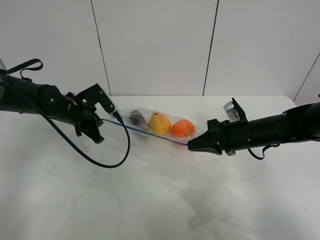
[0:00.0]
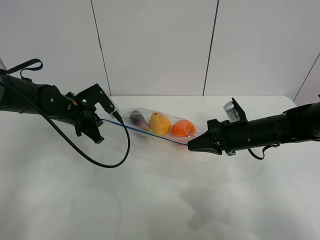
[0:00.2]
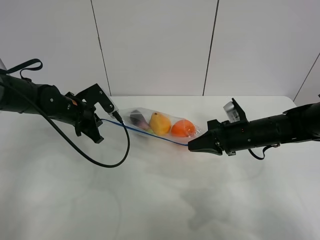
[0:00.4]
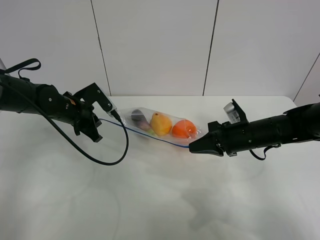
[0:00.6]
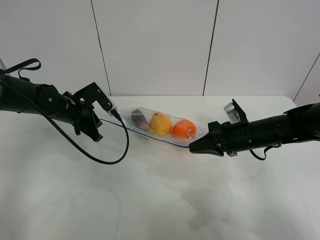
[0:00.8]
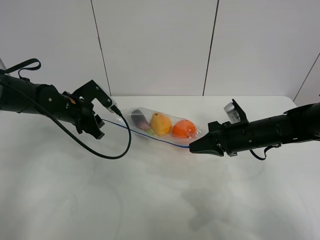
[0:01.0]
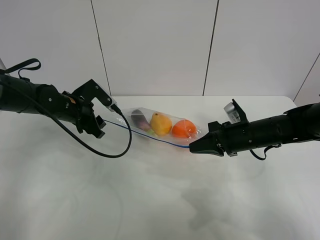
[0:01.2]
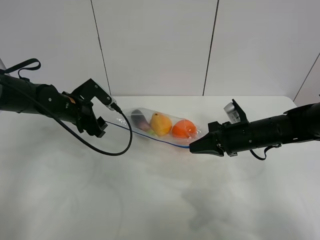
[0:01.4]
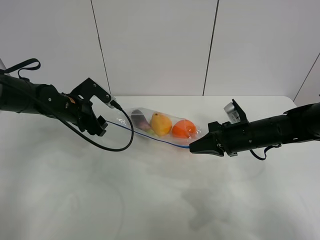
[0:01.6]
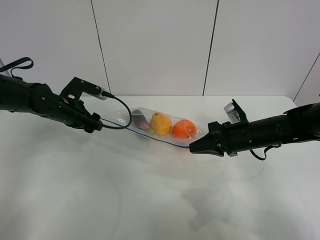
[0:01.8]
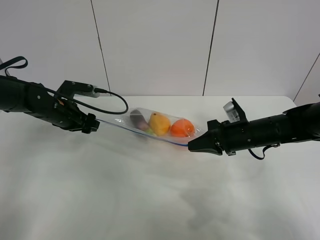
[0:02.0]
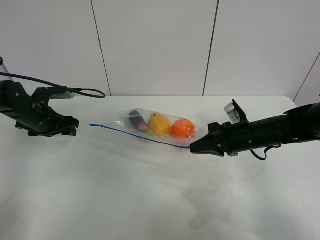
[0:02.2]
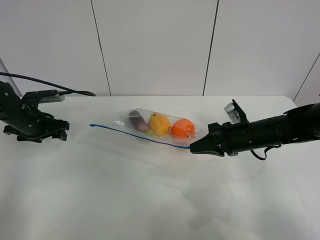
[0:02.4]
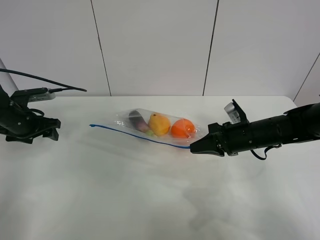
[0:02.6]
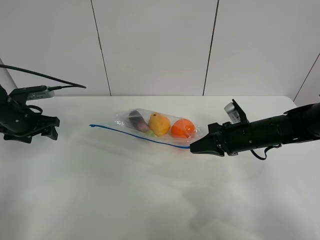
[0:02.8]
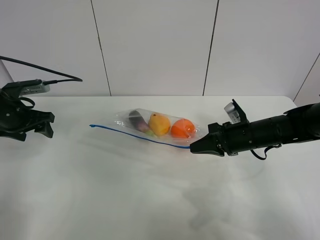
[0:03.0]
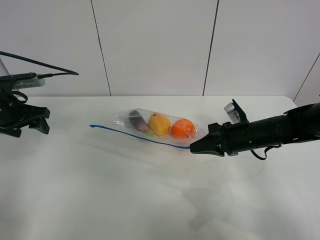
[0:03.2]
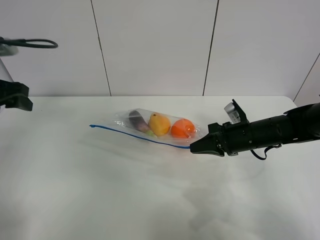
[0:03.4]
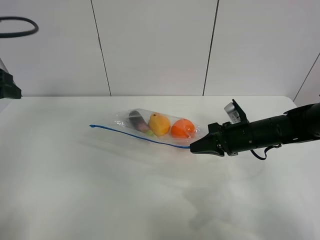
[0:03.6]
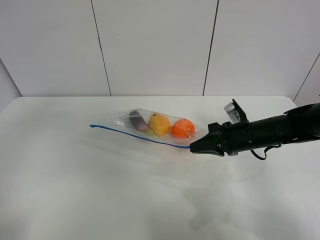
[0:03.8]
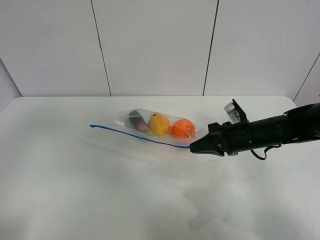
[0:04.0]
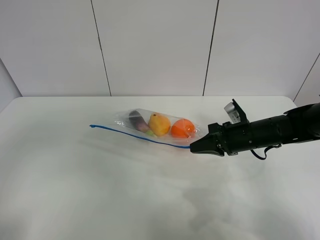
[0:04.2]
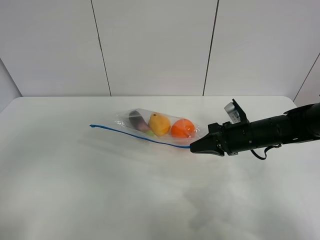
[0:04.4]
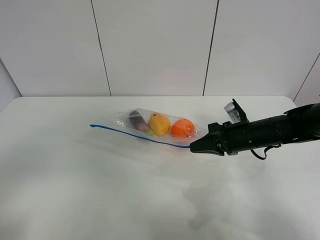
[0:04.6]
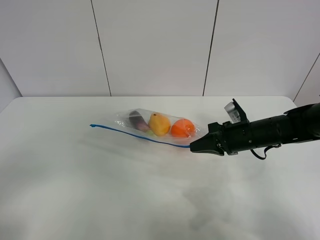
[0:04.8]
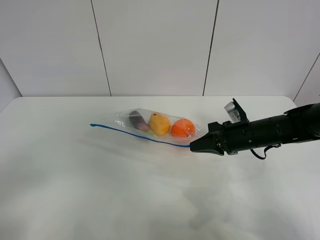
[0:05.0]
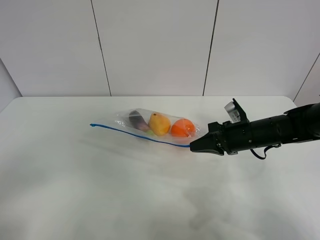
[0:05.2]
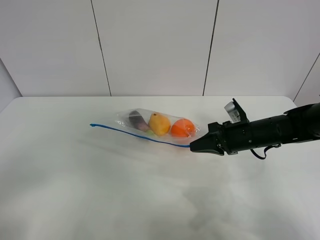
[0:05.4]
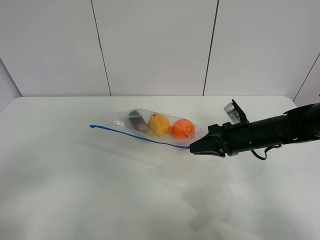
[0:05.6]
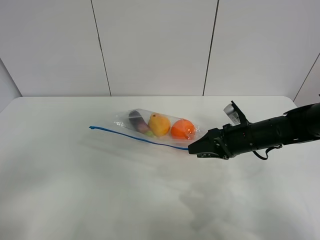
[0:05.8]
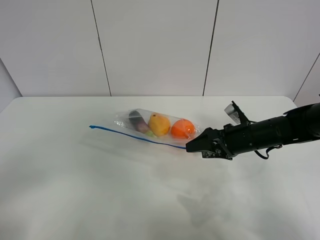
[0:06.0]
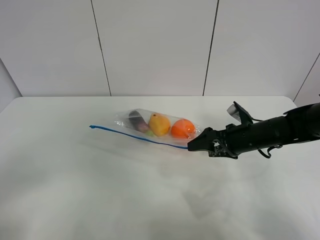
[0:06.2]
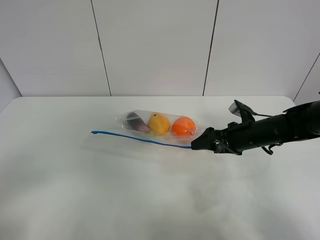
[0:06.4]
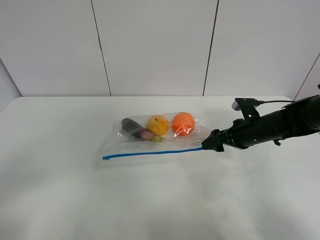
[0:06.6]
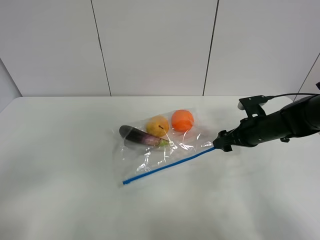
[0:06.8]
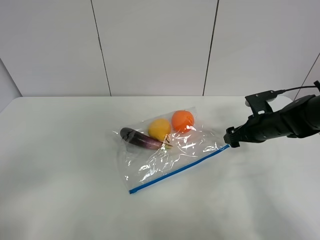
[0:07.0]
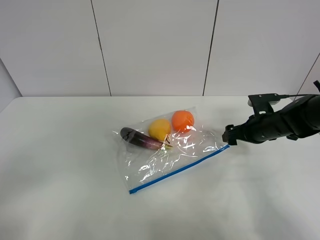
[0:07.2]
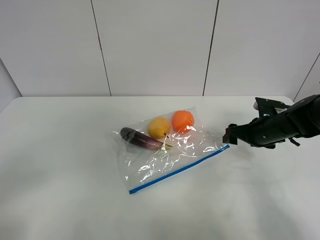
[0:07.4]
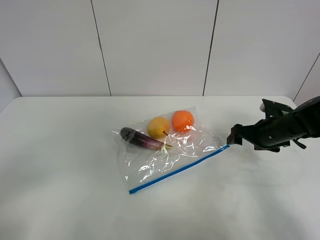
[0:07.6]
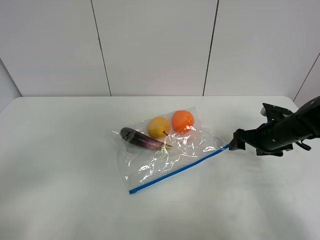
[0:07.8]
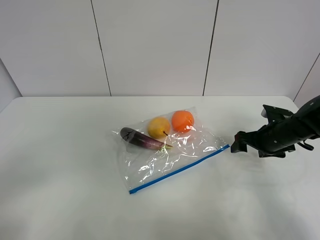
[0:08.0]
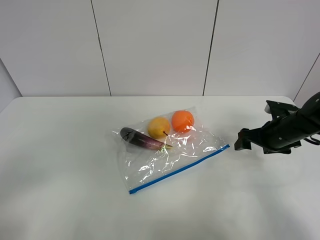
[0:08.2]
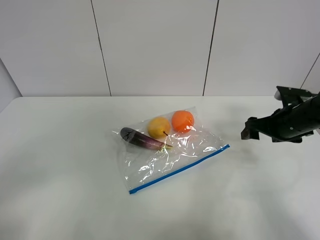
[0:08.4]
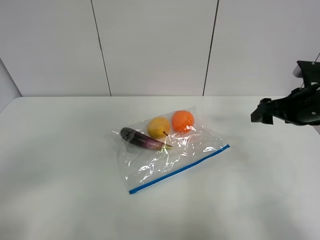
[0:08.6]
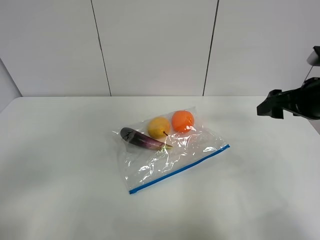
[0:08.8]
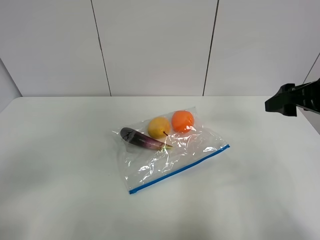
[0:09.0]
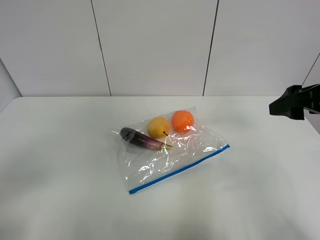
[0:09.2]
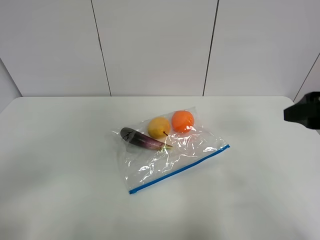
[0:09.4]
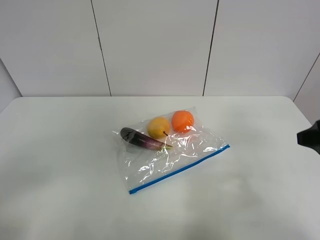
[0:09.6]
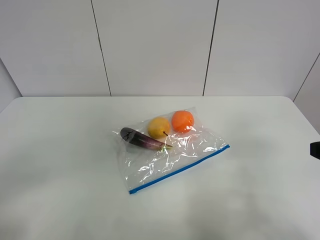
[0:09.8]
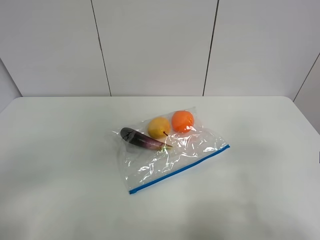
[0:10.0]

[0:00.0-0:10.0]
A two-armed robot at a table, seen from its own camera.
0:00.0 to 0:01.4: The left gripper opens up.
0:01.4 to 0:02.8: The left gripper heads to the left, covering approximately 15 cm.
0:02.8 to 0:04.2: The left gripper goes roughly 35 cm backward and upward.
0:04.2 to 0:05.8: The left gripper moves downward and backward, roughly 10 cm. Meanwhile the right gripper opens its fingers.
0:05.8 to 0:07.2: The right gripper moves to the right, some 5 cm, and opens.
0:07.2 to 0:08.6: The right gripper shifts some 15 cm upward and backward.
0:08.6 to 0:10.0: The right gripper moves backward, approximately 20 cm.

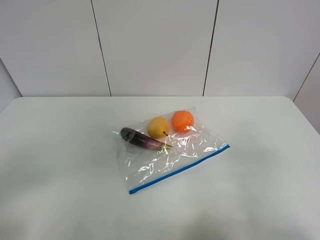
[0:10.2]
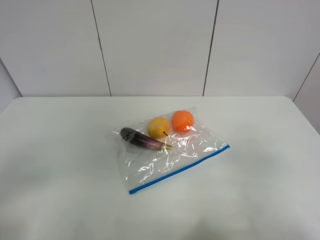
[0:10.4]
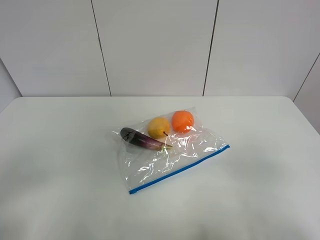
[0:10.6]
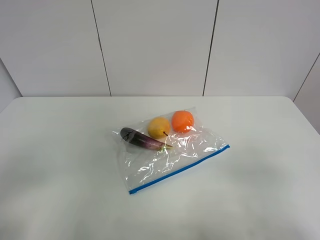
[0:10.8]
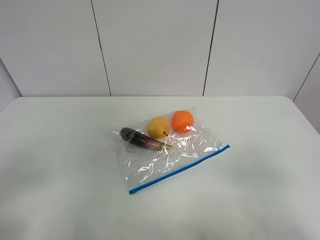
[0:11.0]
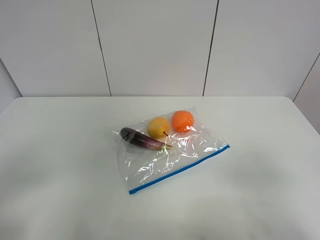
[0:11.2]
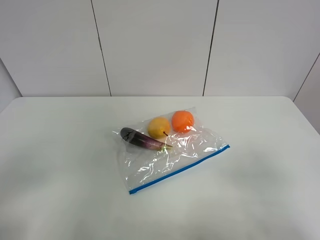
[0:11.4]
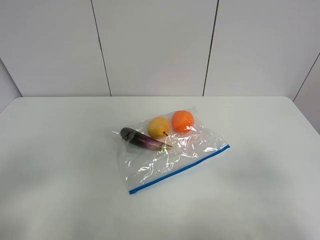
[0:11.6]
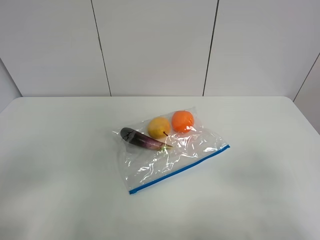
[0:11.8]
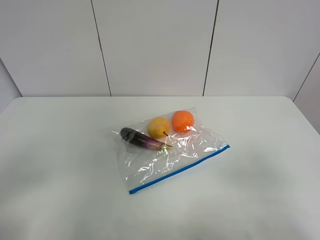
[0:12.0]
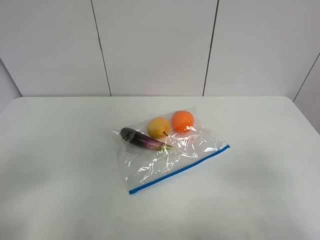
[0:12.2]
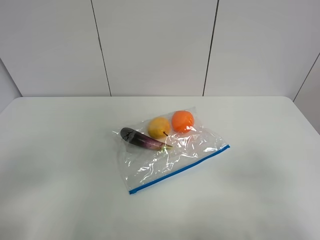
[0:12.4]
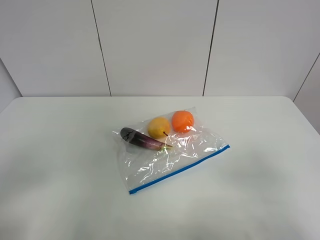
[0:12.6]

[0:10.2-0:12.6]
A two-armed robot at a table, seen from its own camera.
0:11.4 to 0:12.6: The two grippers keep their place.
